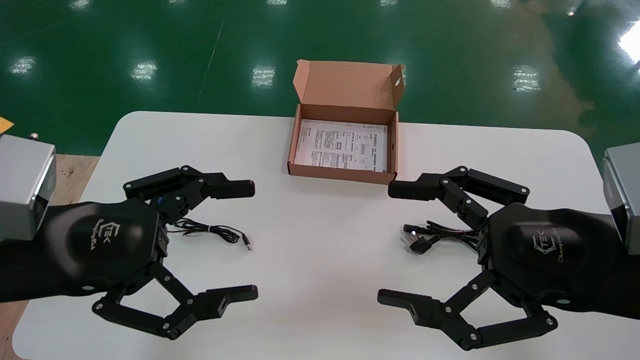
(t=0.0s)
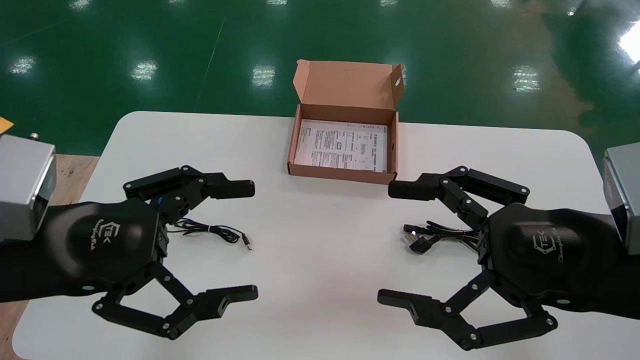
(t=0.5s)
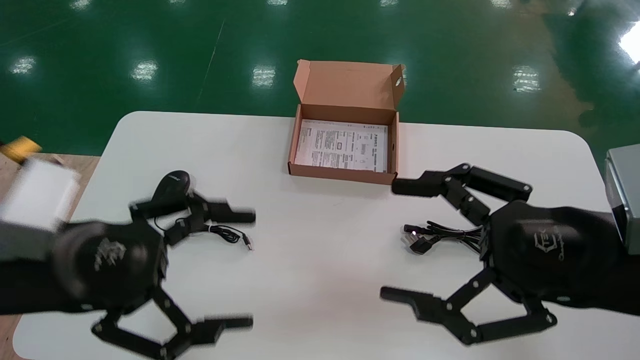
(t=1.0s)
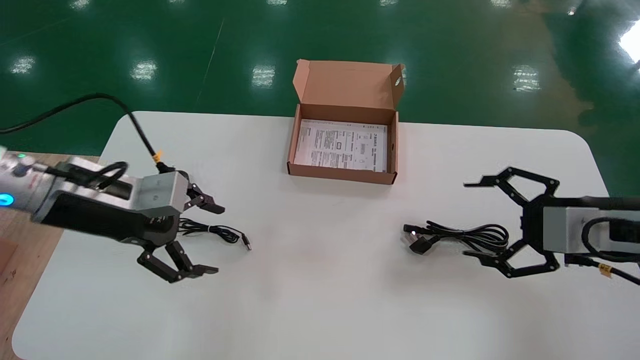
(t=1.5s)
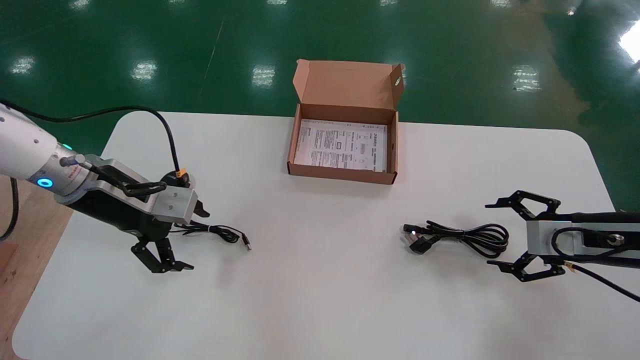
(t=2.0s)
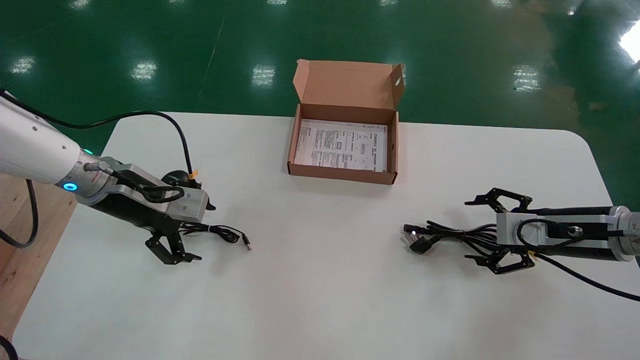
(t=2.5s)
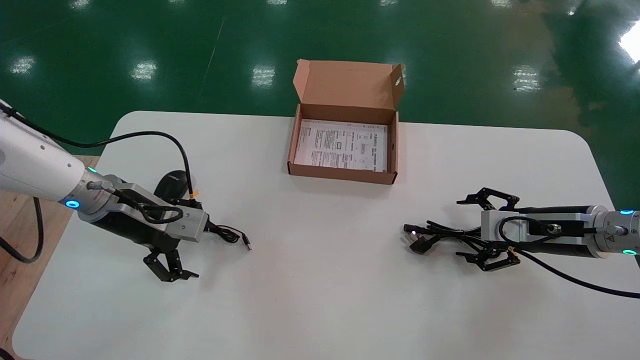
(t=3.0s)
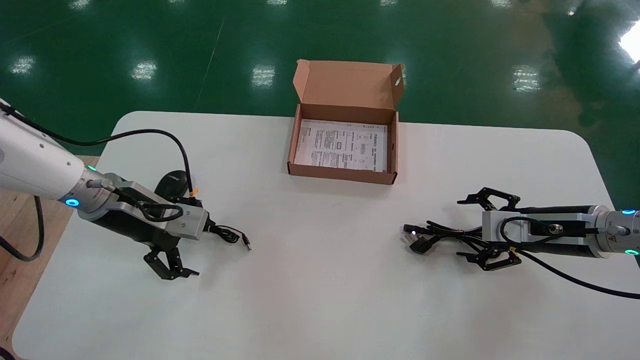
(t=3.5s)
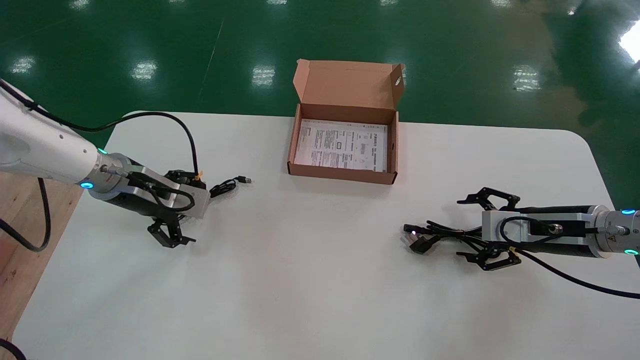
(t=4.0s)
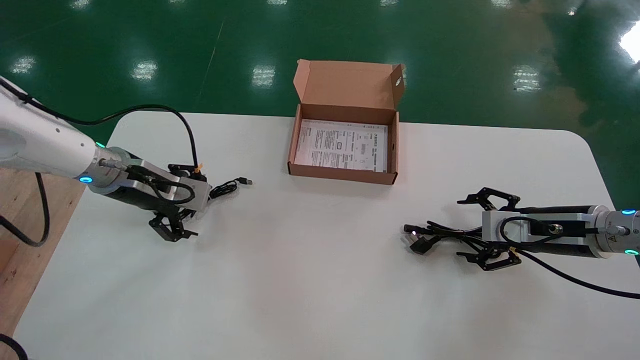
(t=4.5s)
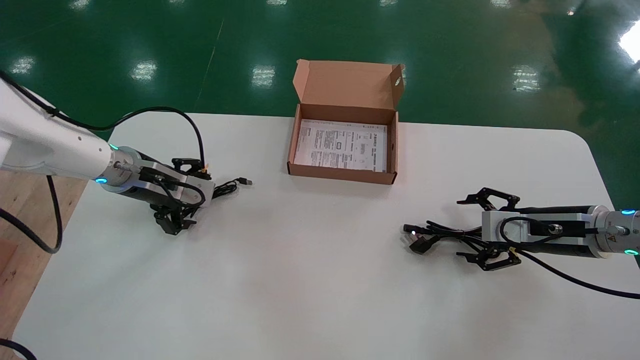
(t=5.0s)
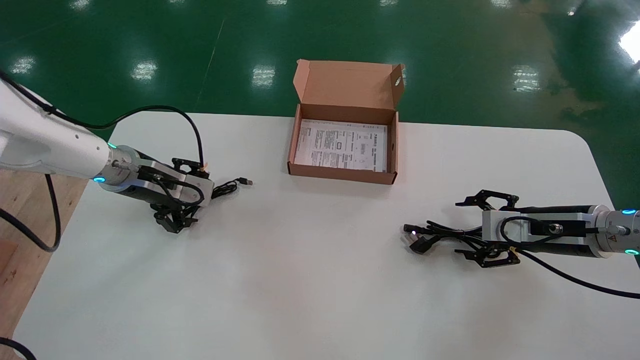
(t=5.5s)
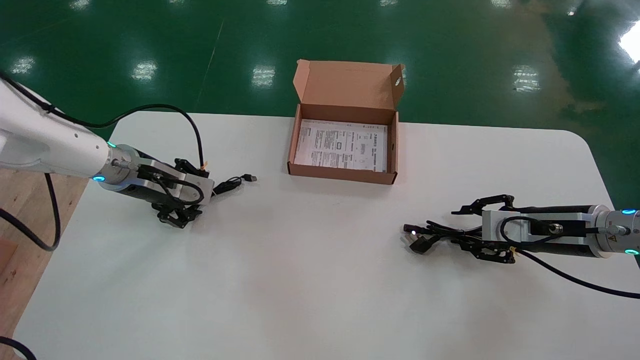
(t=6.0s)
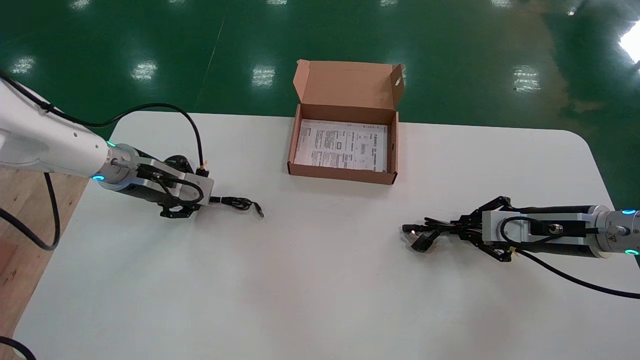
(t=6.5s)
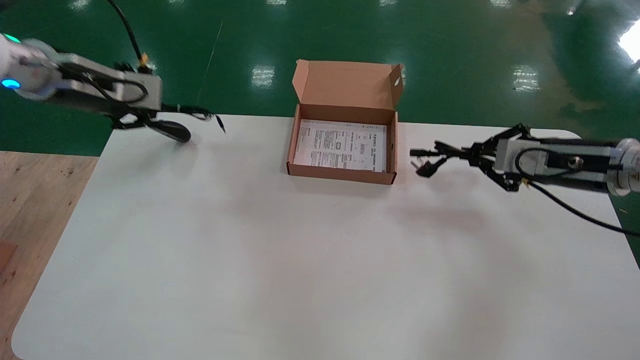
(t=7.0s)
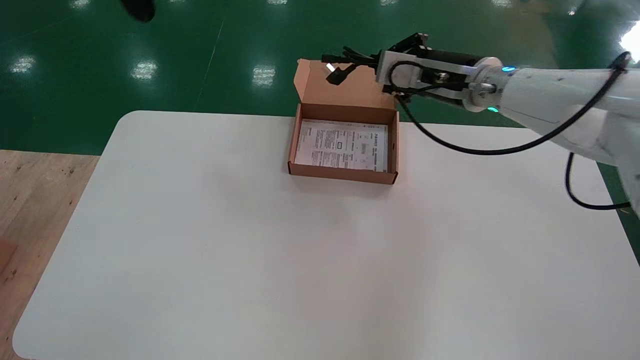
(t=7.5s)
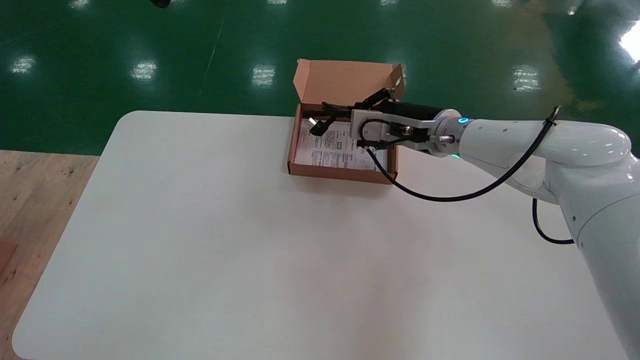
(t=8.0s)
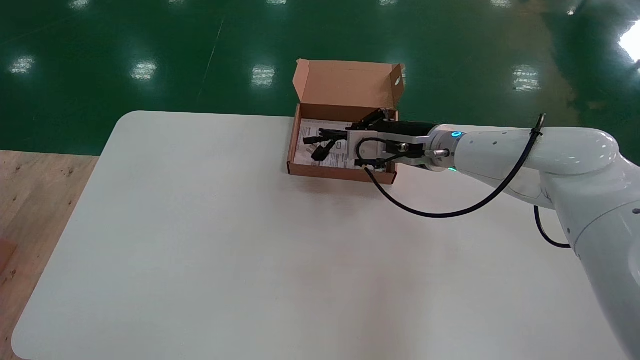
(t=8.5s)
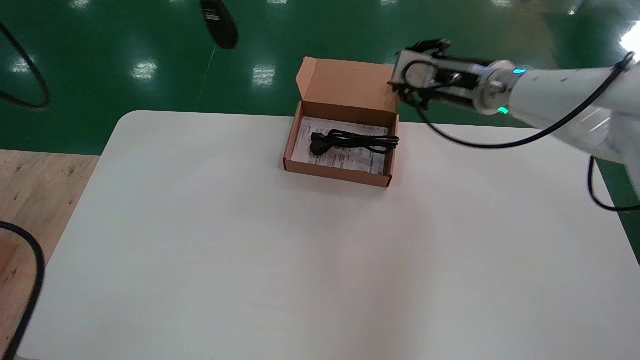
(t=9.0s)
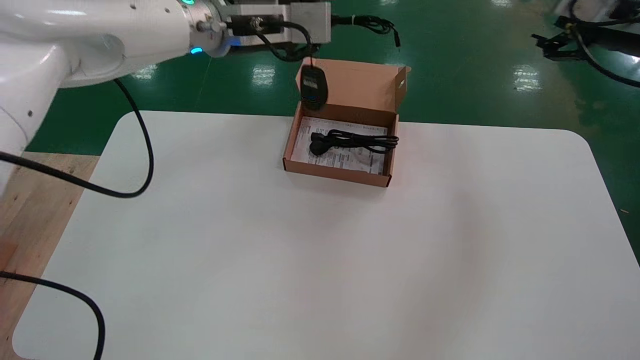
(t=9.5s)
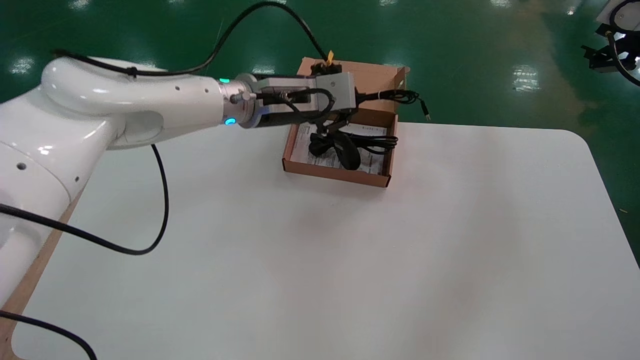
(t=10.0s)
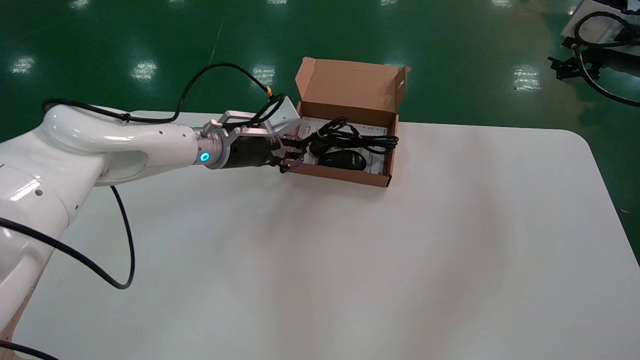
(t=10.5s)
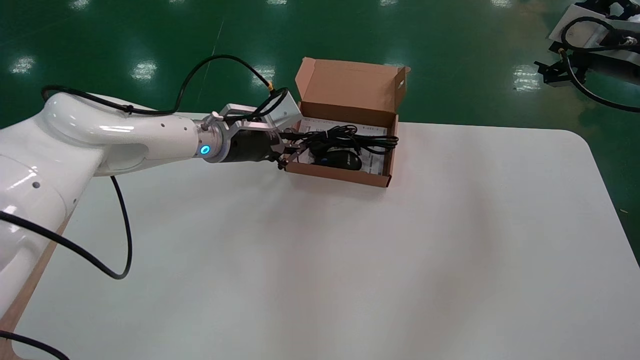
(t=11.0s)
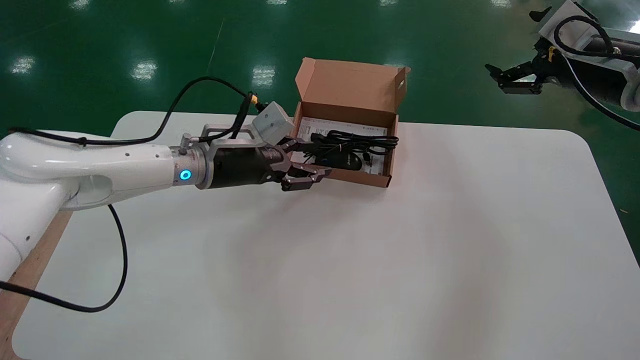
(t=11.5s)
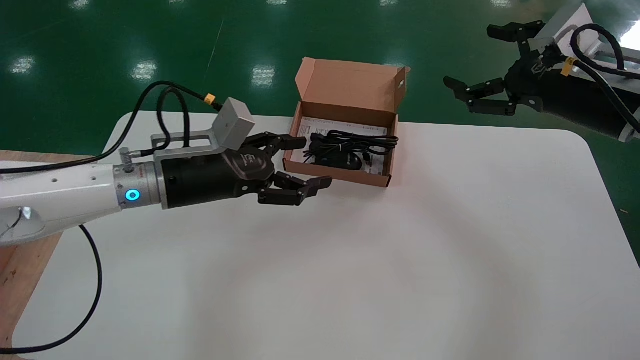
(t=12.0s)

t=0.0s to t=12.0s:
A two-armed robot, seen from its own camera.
Step, t=1.5s to t=6.5s: Simultaneously pick up the mouse and power cord from the accessory packaging area.
Step, t=7.0s to t=11.5s: Place the mouse and power cord into the box.
t=0.0s to t=2.0s: The right gripper goes some 20 cm forward, to the right and downward. Meanwhile the left gripper heads forward, covering some 20 cm.
t=2.0s to t=4.0s: The right gripper ends up about 5 cm from where it was.
t=4.0s to t=6.0s: The right gripper closes its fingers, while the left gripper closes its fingers.
t=6.0s to t=8.0s: The left gripper moves upward, about 35 cm, and closes. The right gripper travels to the left, upward and forward by some 25 cm, and closes up.
t=8.0s to t=10.0s: The right gripper is displaced to the right and upward by roughly 30 cm, and opens up, while the left gripper is displaced downward and to the right by some 30 cm.
t=10.0s to t=12.0s: The two grippers go about 15 cm to the left, downward and backward. The left gripper opens.

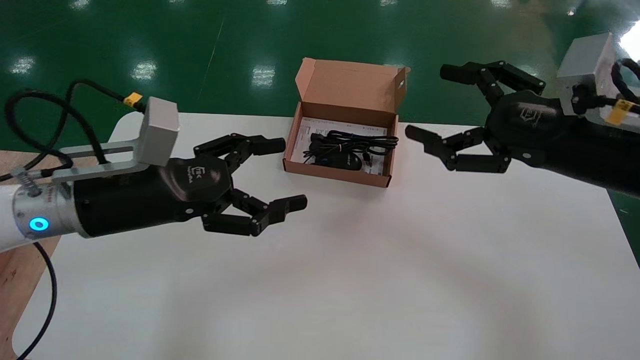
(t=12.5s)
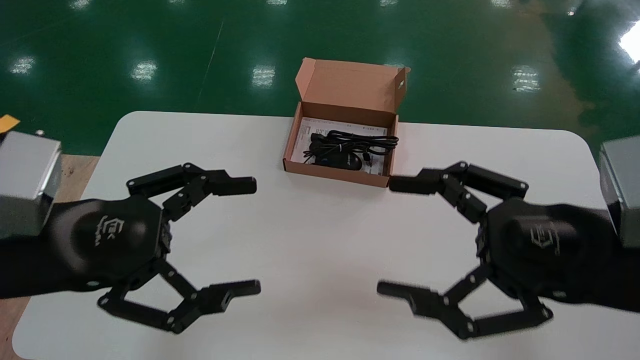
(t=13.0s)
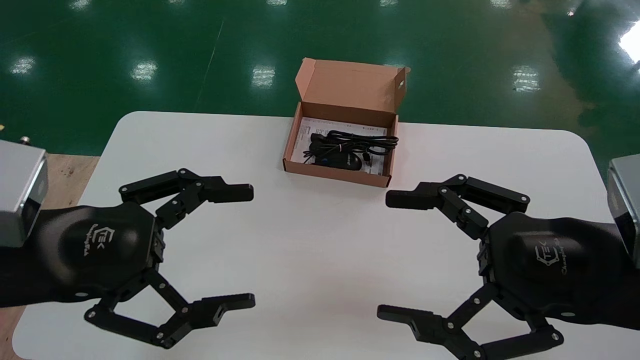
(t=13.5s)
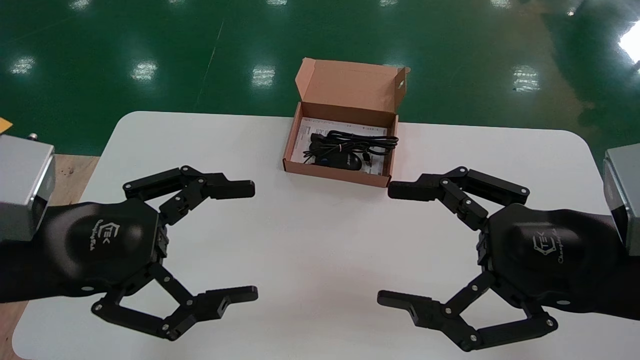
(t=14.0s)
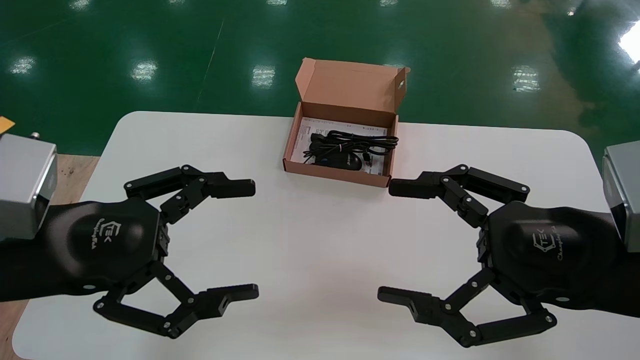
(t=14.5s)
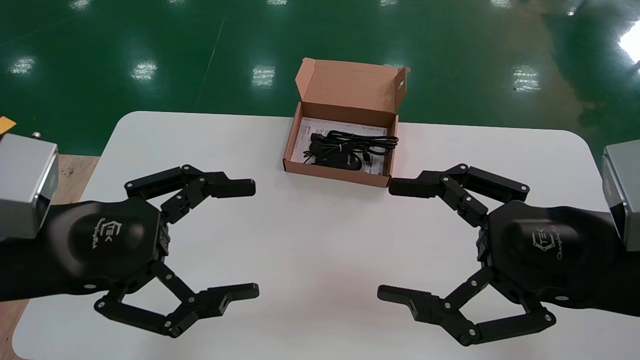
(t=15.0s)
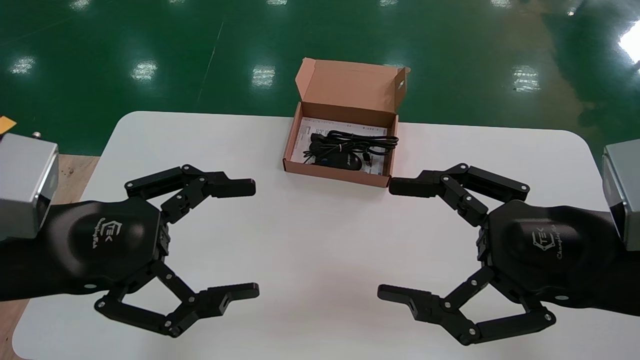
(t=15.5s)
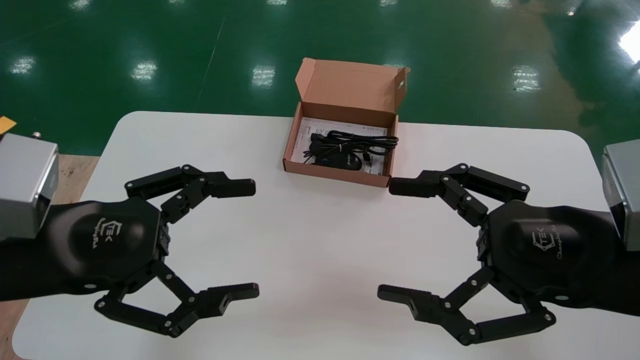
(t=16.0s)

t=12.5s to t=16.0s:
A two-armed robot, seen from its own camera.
t=12.5s to t=14.5s: The grippers both shift backward by about 10 cm.
t=14.5s to t=16.0s: The two grippers keep their place.
